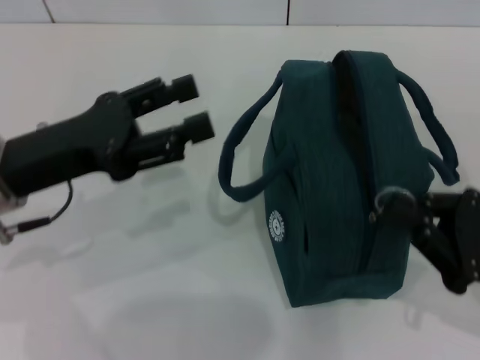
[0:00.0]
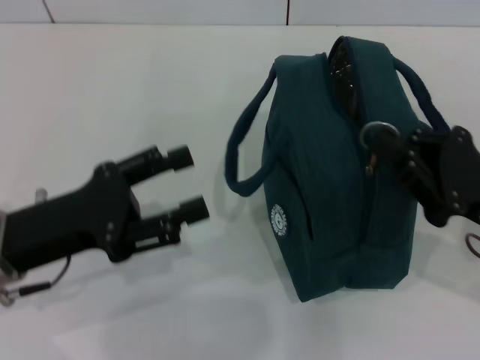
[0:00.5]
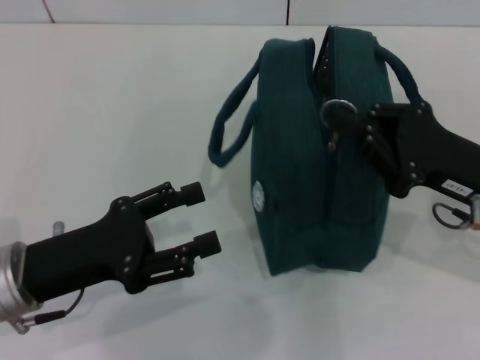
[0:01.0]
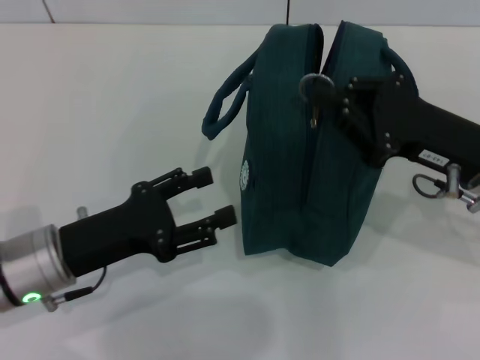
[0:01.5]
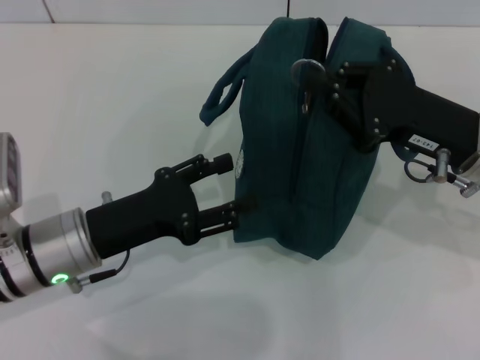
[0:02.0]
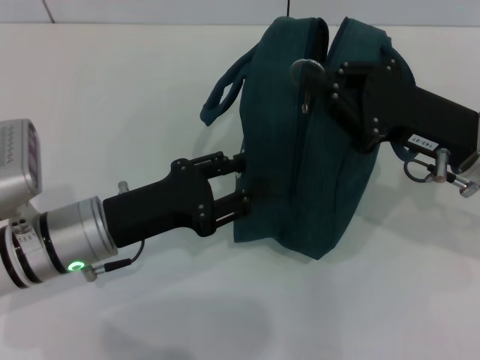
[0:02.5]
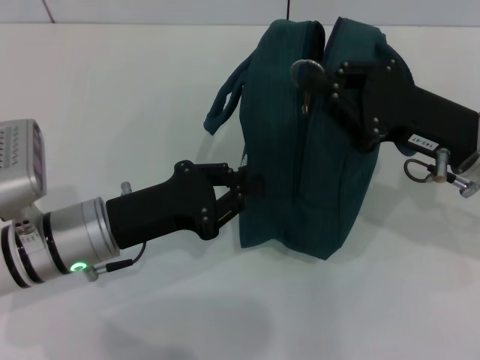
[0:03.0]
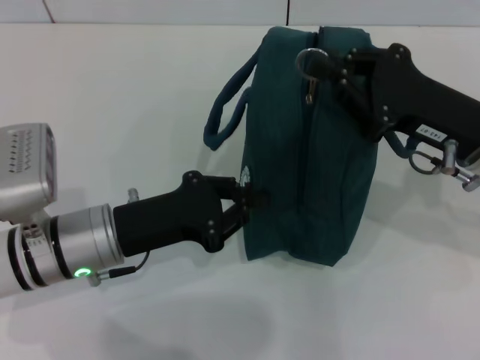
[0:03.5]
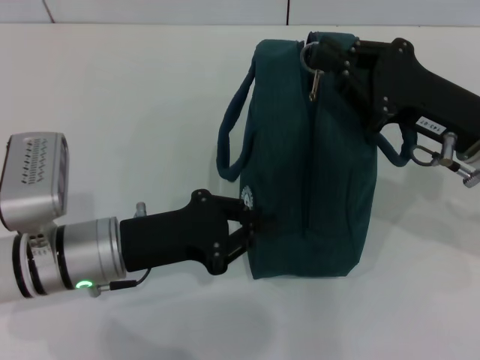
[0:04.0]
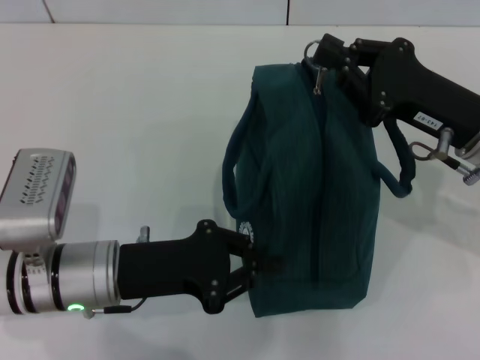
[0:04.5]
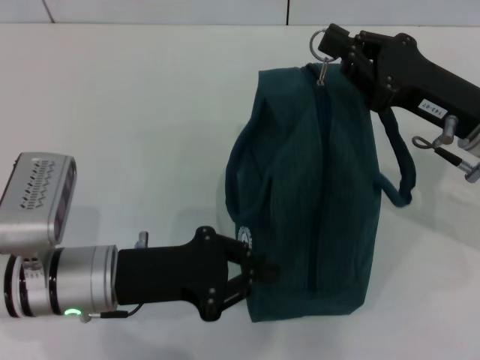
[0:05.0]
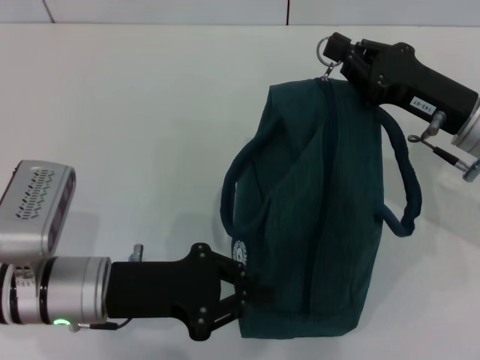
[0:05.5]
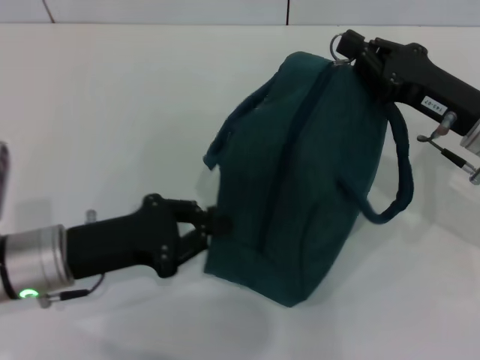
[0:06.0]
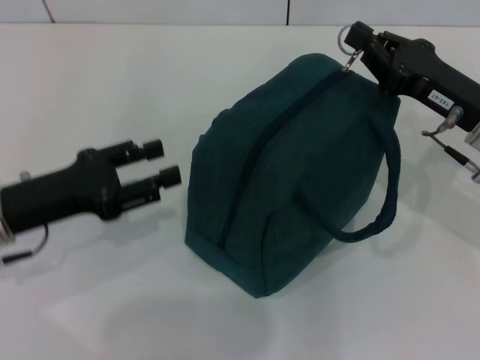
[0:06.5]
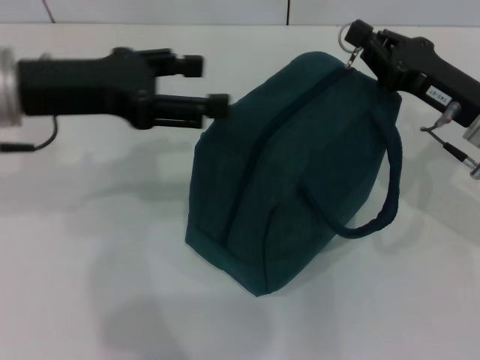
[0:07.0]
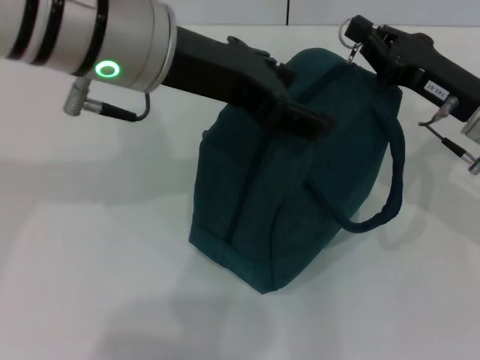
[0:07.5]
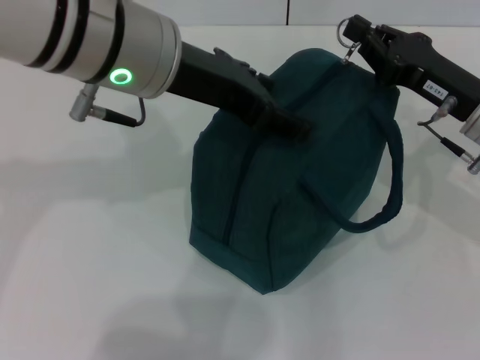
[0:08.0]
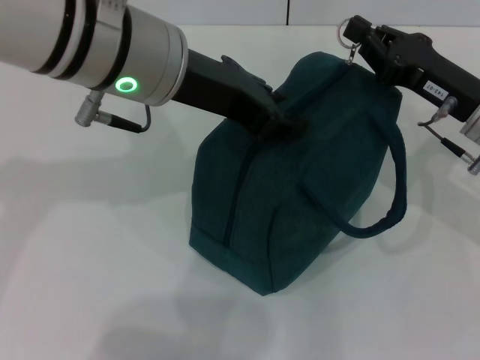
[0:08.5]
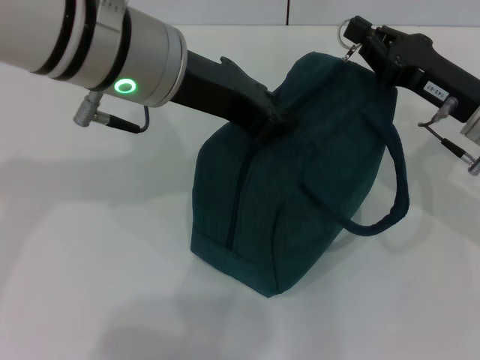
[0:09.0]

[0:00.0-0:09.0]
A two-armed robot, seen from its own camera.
0:00.0 to 0:02.0: The left gripper is displaced downward by some 10 cm; the right gripper travels forward, to the left and upward by about 15 cm.
0:02.0 to 0:04.5: The left gripper closes.
0:04.5 to 0:07.0: The left gripper moves upward and forward, some 15 cm, and opens.
0:07.0 to 0:09.0: The left gripper moves to the right, roughly 10 cm, and closes up.

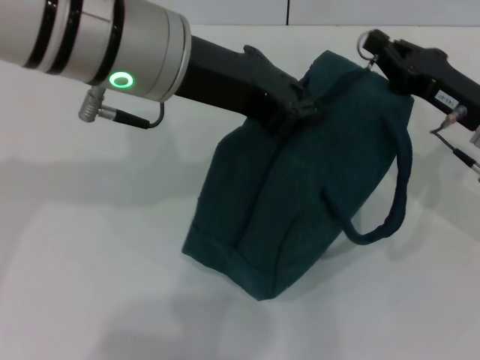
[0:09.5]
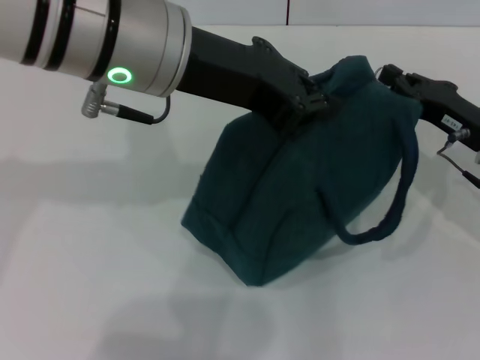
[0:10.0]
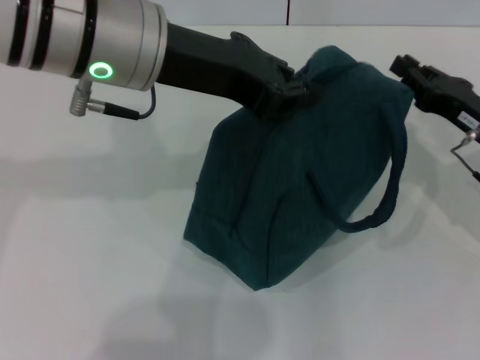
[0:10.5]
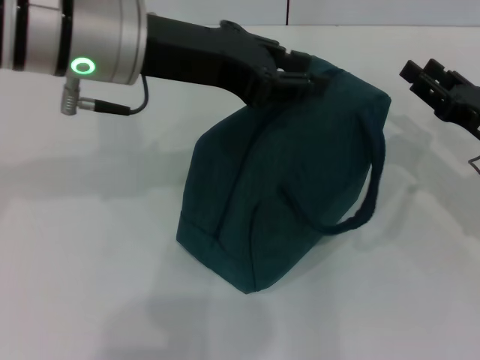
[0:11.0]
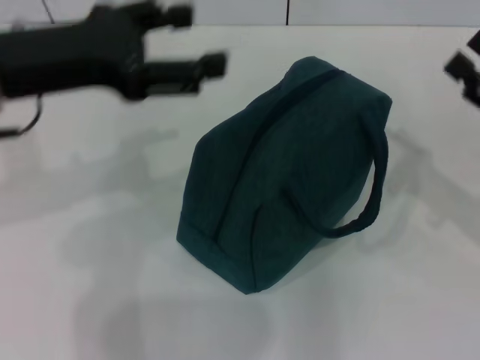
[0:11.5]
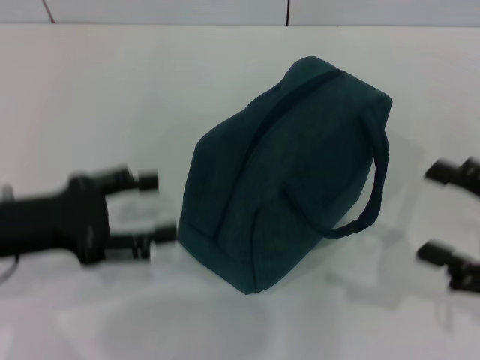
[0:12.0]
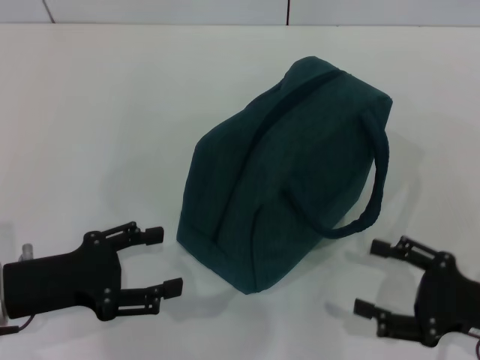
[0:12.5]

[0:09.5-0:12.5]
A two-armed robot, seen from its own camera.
0:09.5 to 0:11.0: The right gripper changes place by roughly 5 cm, and opens up.
0:11.0 to 0:12.5: The right gripper is displaced backward by roughly 10 cm, and opens; the left gripper is displaced downward, to the left and backward by roughly 25 cm, and opens its fingers.

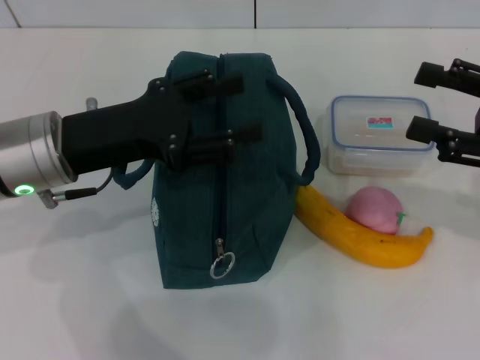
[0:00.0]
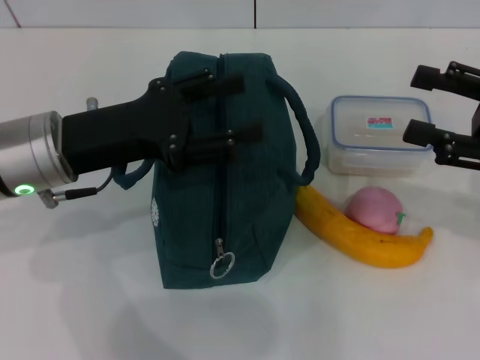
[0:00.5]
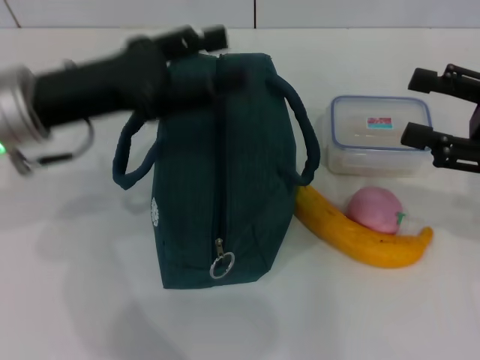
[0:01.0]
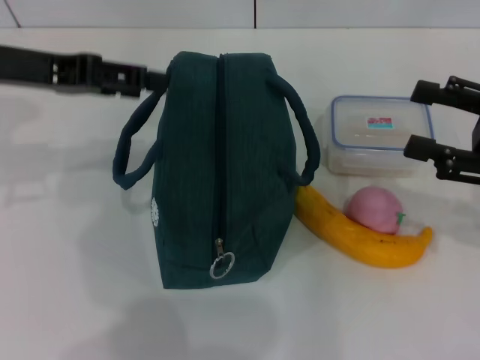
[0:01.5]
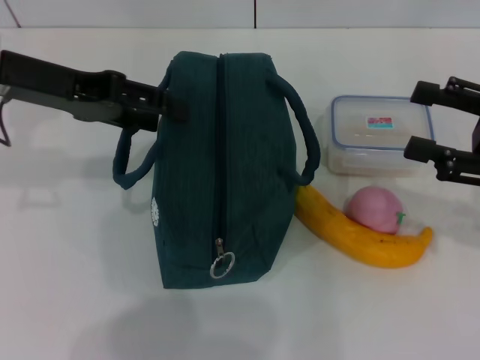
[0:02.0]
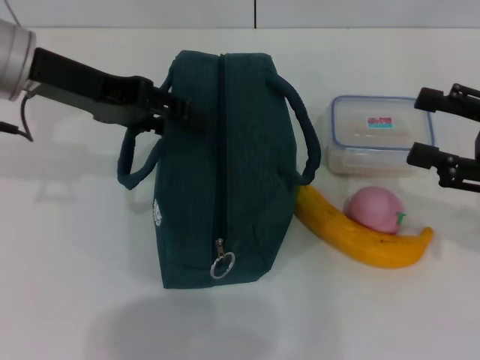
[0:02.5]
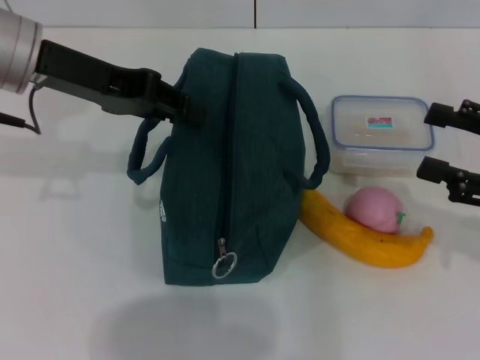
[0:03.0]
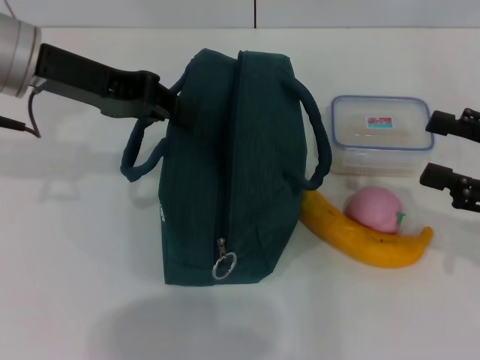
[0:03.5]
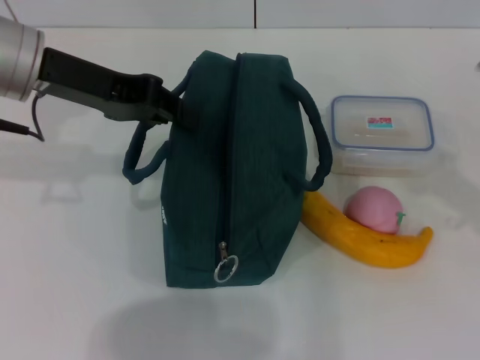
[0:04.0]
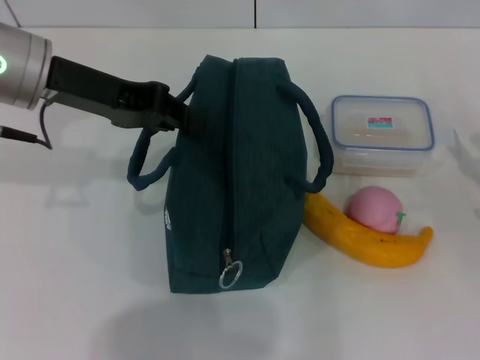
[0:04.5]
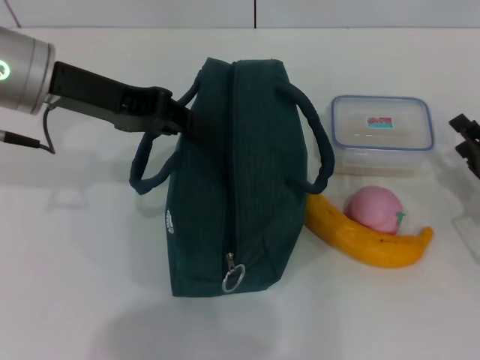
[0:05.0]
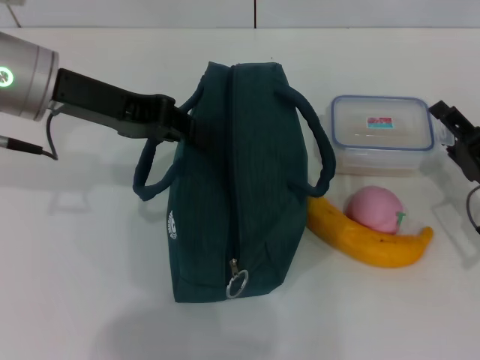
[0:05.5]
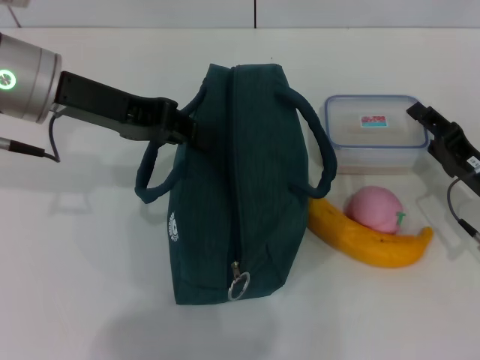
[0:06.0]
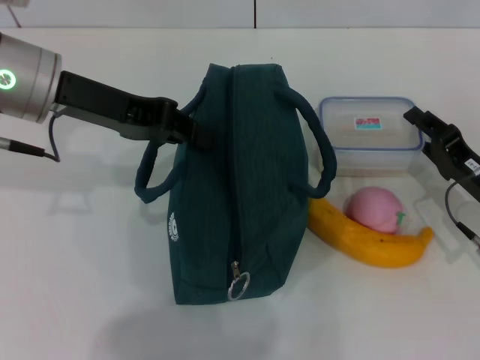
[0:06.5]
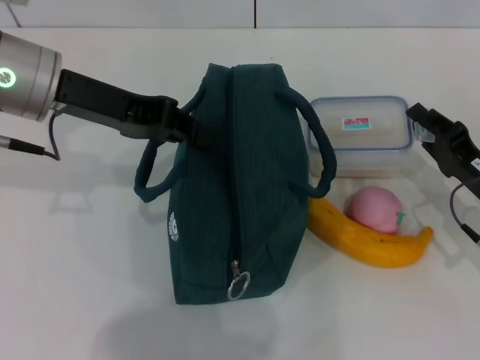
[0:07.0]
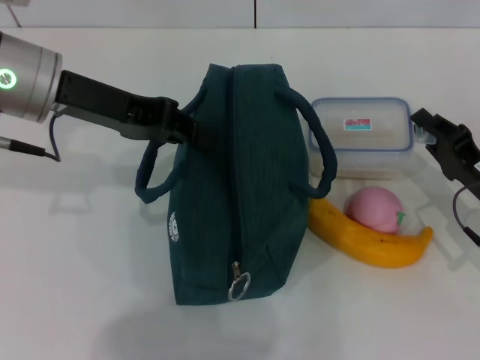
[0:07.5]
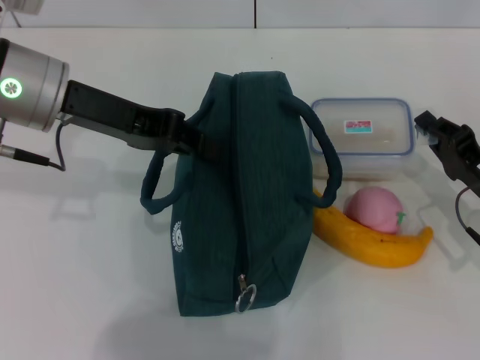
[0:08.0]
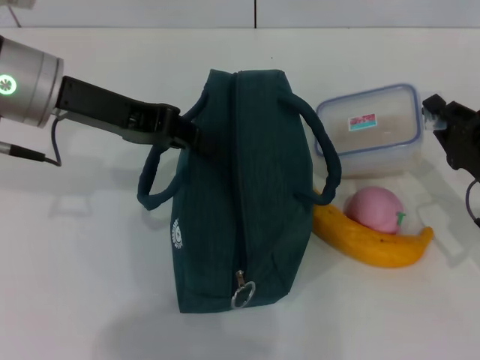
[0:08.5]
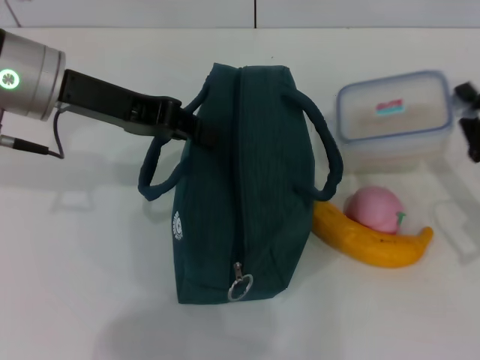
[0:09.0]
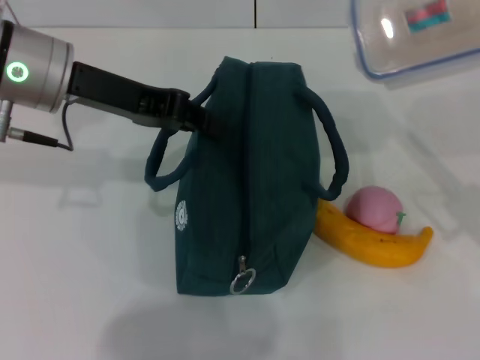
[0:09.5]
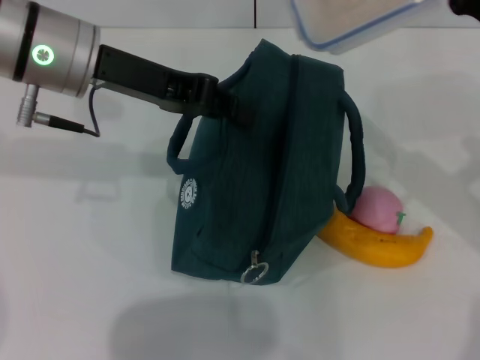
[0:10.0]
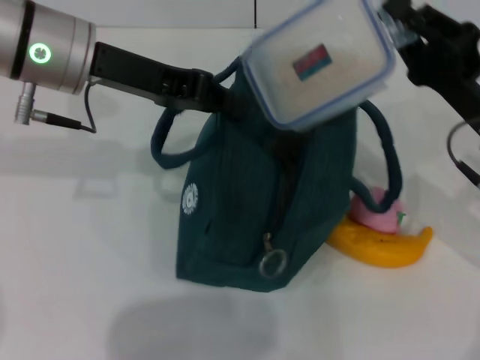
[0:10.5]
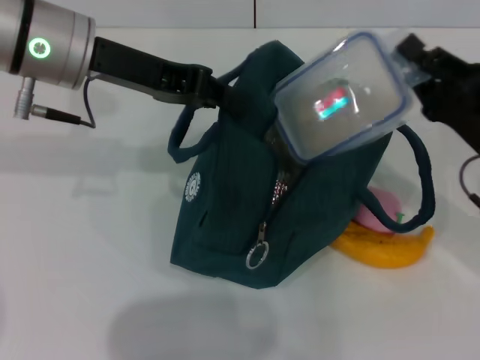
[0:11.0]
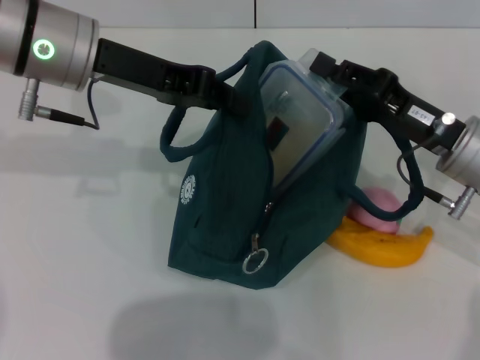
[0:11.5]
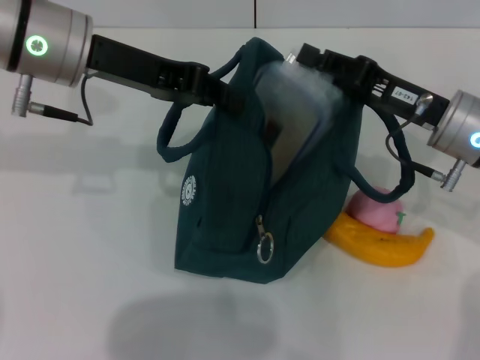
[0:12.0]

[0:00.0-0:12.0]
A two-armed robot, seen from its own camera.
Step, 0:00.0 to 0:04.0: Hold the lunch bag with your left hand.
Step, 0:04.5 to 0:08.0: Pick up the lunch box with your right hand.
0:00.0 to 0:02.0: The left gripper moves upward and forward, about 10 cm.
0:02.0 to 0:04.0: The left gripper closes up, while the right gripper ends up approximately 5 cm from where it was.
0:04.0 to 0:06.0: The right gripper moves downward and to the left, some 10 cm.
0:06.0 to 0:08.0: The right gripper closes.
0:08.0 to 0:10.0: The right gripper heads upward, covering roughly 10 cm.
0:10.0 to 0:12.0: The right gripper moves roughly 5 cm.

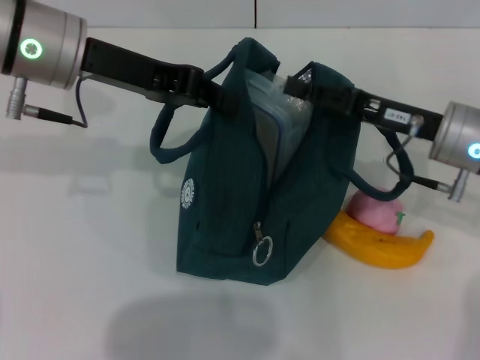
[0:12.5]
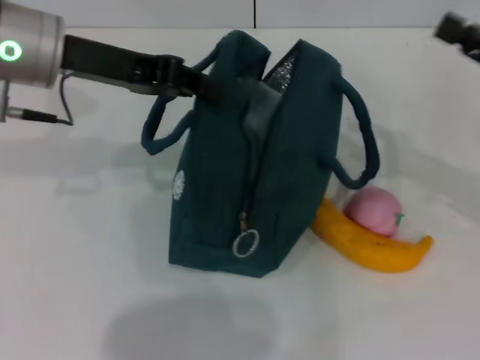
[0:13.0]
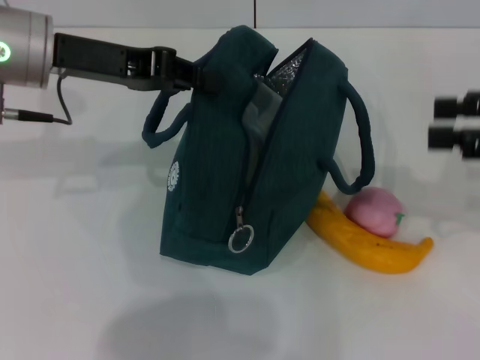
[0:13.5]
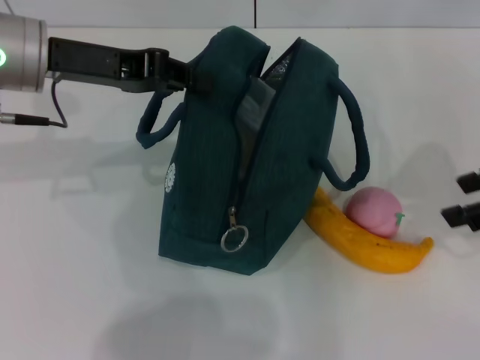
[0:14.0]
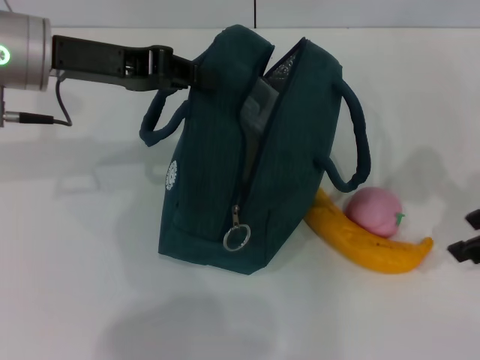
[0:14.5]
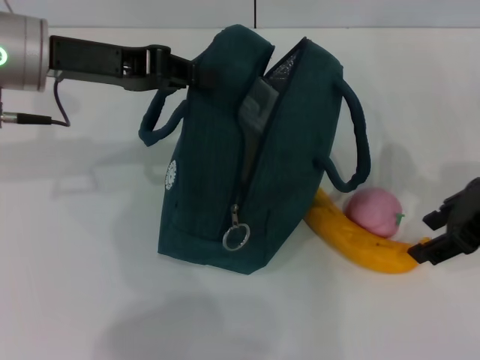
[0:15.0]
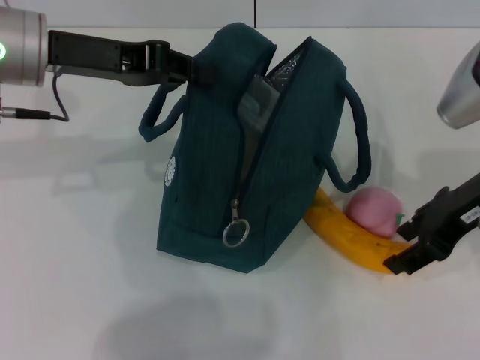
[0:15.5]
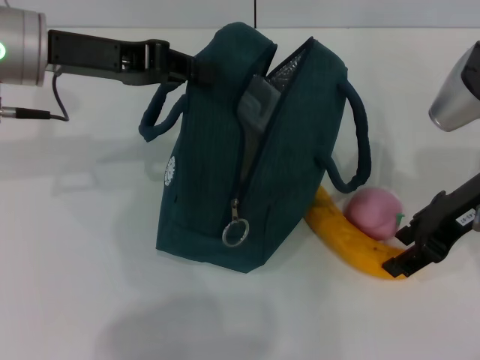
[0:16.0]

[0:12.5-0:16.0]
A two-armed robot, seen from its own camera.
0:12.5 to 0:14.5: The right gripper shifts some 15 cm upward, to the right and backward, and opens its fingers.
0:14.5 to 0:16.0: The right gripper moves to the left, some 5 cm.
